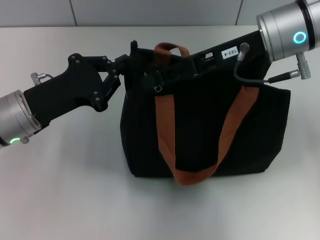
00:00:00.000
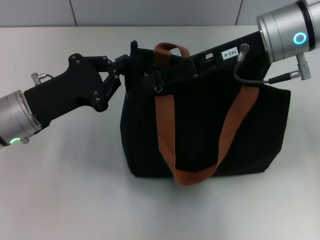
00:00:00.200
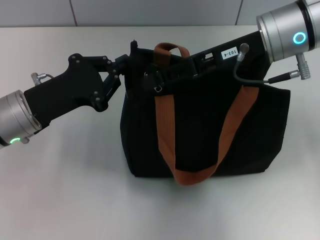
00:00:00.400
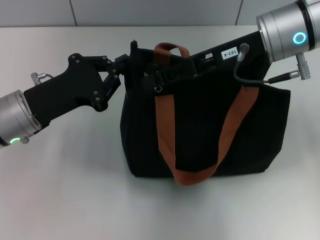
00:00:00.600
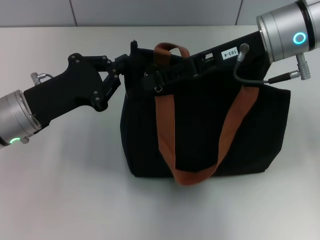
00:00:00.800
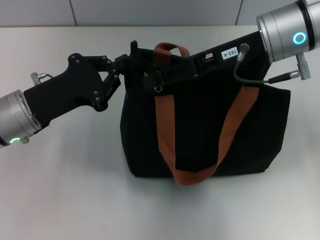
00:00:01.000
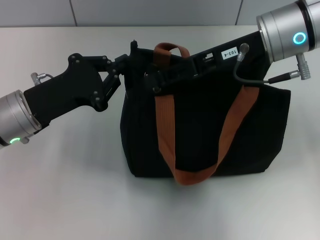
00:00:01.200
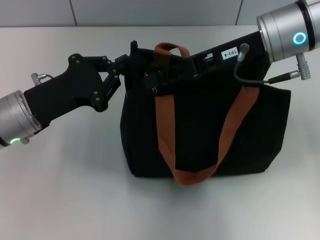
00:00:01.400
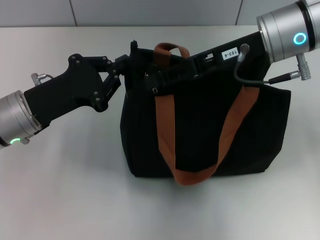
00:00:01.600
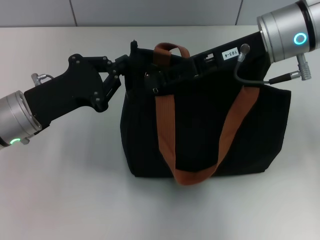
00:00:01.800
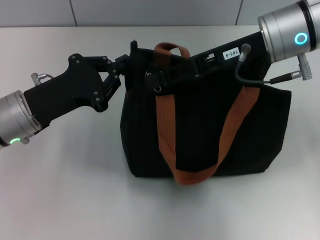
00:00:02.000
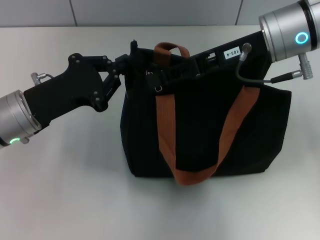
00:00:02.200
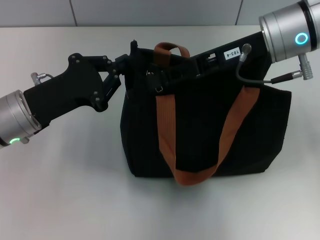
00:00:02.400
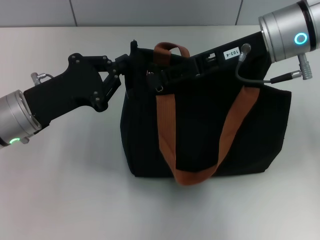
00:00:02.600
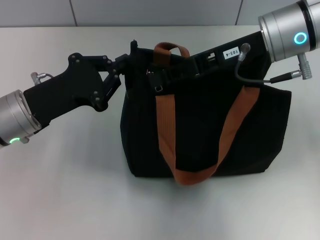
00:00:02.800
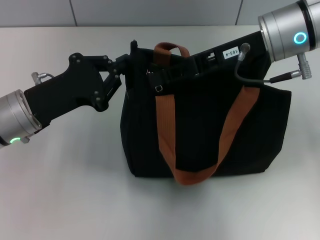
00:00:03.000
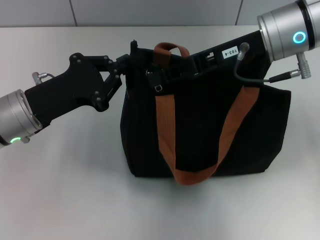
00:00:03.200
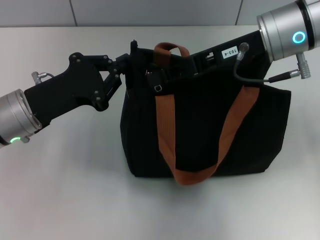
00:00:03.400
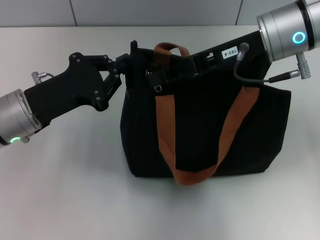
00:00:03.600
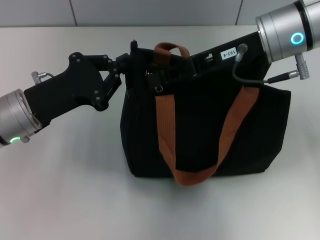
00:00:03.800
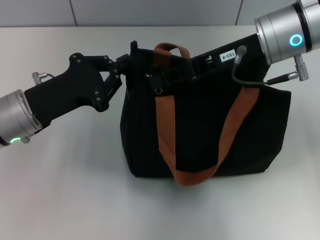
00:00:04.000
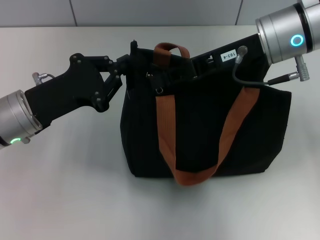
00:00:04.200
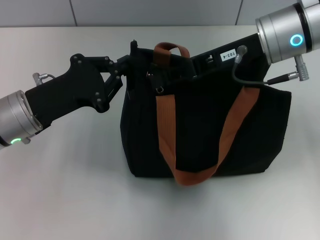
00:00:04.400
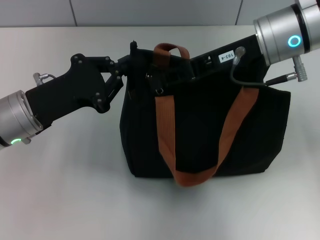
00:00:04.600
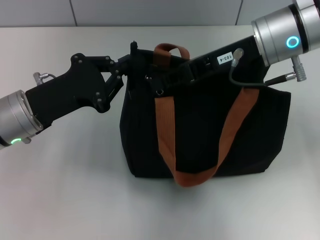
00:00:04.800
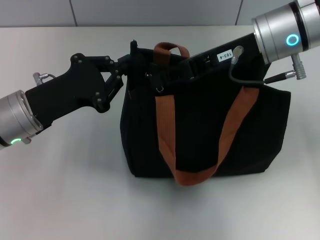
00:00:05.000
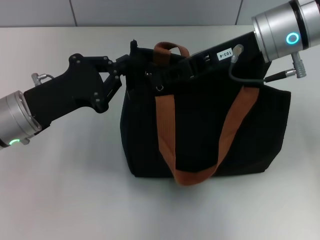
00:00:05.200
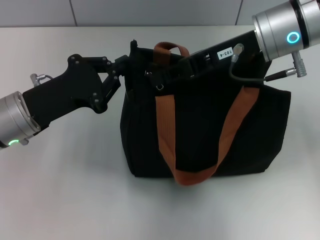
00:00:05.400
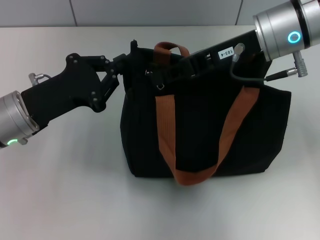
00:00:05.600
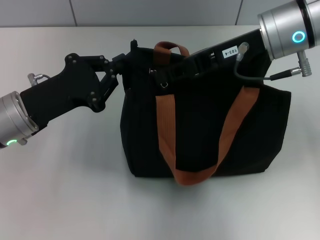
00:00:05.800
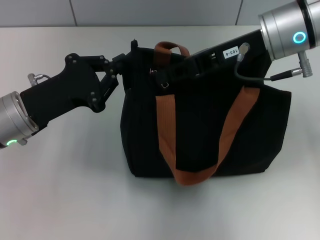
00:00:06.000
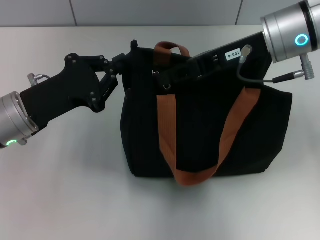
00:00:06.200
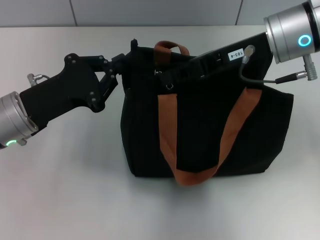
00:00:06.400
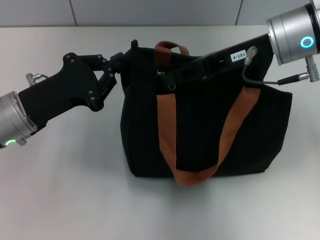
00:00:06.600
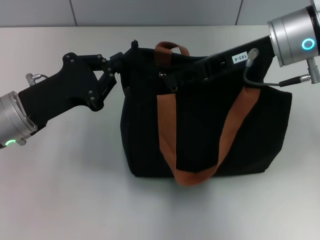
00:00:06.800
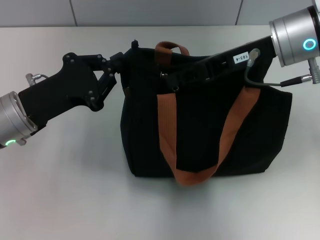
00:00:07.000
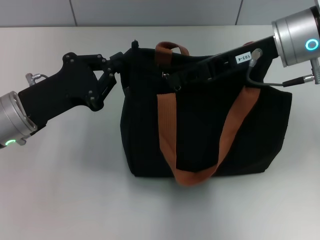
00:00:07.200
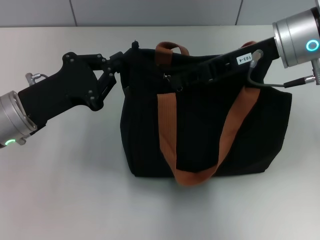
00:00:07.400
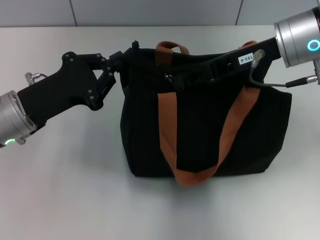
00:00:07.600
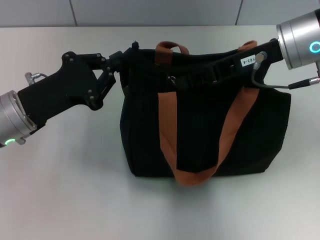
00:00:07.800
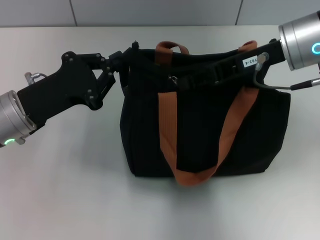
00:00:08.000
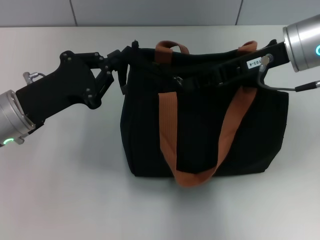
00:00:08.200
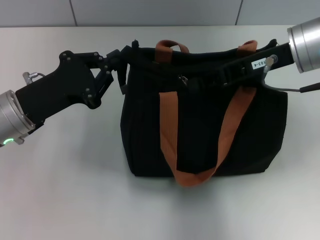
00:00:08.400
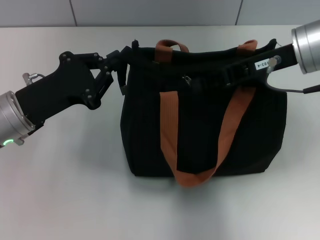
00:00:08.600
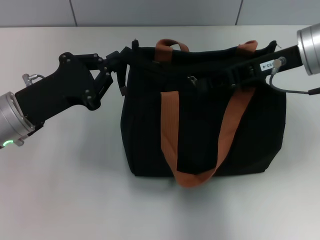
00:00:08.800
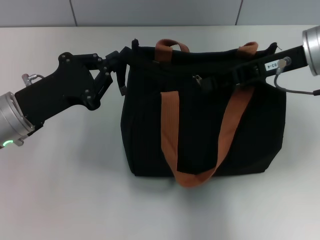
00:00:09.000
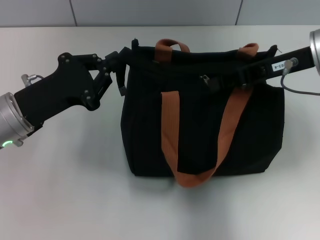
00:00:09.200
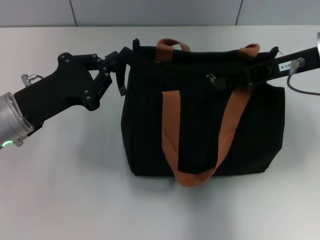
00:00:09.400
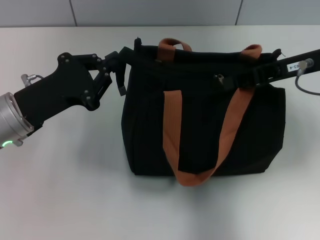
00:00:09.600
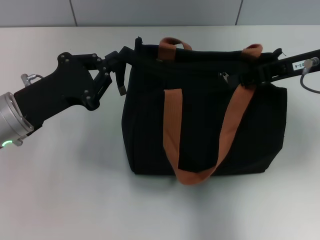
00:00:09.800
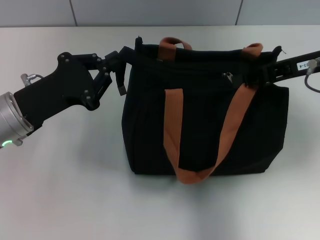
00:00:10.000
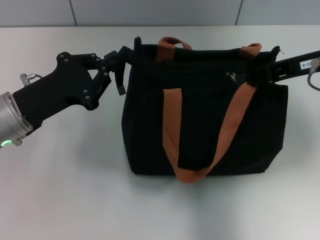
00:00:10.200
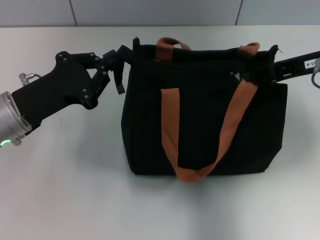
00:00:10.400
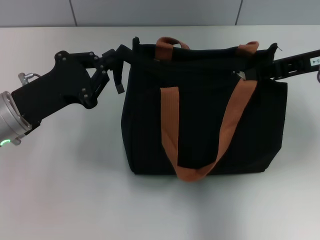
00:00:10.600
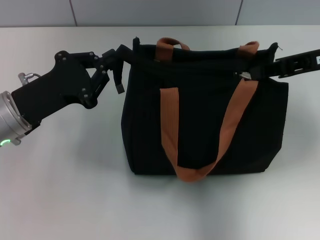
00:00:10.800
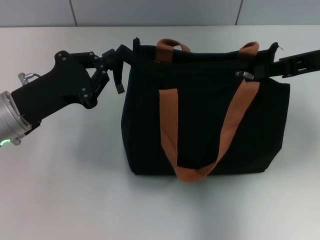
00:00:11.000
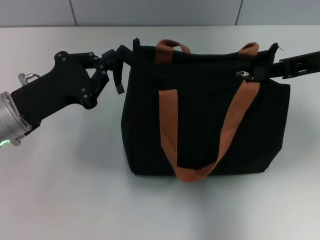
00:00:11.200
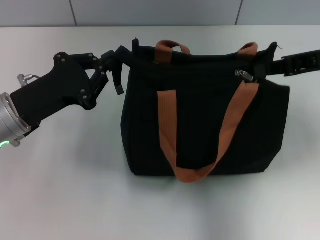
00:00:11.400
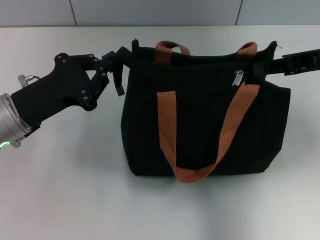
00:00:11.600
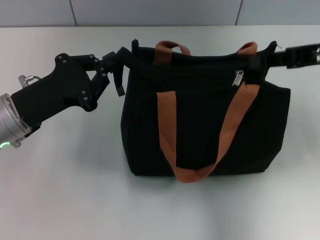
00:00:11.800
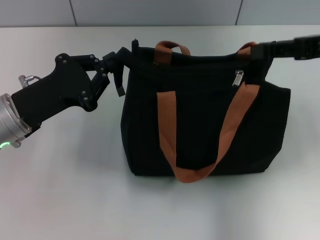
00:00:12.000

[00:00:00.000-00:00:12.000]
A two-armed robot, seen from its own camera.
Step, 00:00:00.000 to 00:00:12.000: Pull up the zipper with your right hand.
00:00:00.000 to 00:00:04.400: Both grippers stay about where they are.
00:00:04.400 to 00:00:06.000: Both grippers stay put.
00:00:06.000 to 00:00:09.000: The grippers stay close to where they were, moving slightly.
00:00:09.000 to 00:00:10.400: The grippers make only small movements.
00:00:10.400 to 00:00:12.000: The grippers make only small movements.

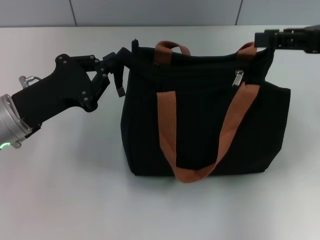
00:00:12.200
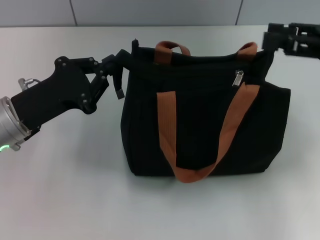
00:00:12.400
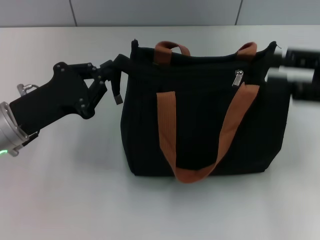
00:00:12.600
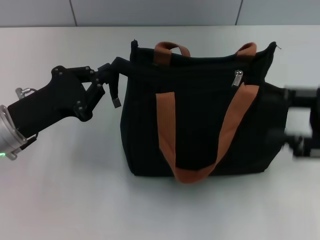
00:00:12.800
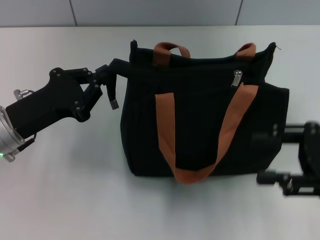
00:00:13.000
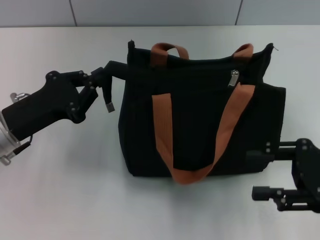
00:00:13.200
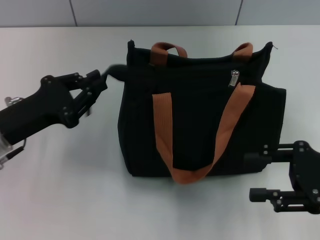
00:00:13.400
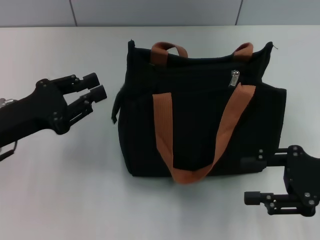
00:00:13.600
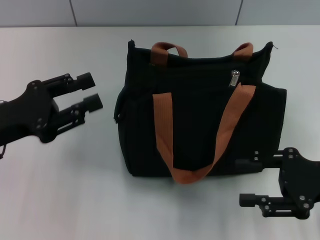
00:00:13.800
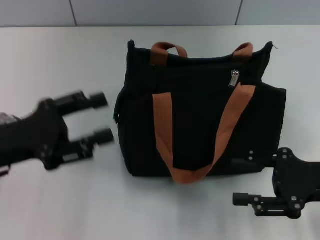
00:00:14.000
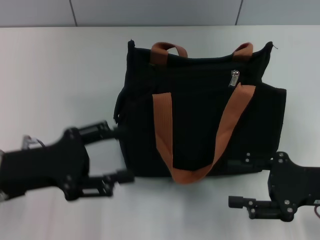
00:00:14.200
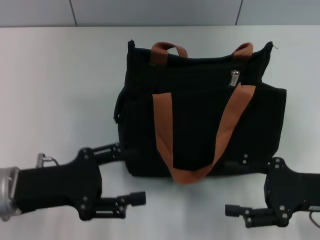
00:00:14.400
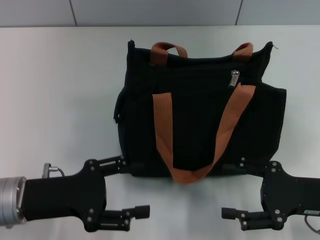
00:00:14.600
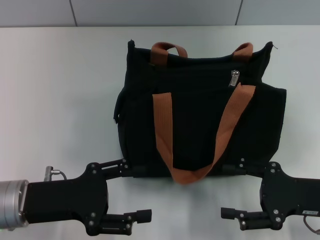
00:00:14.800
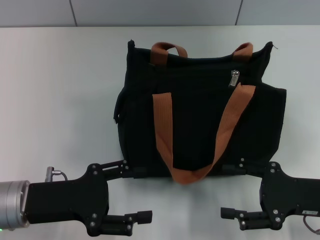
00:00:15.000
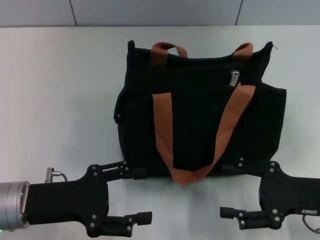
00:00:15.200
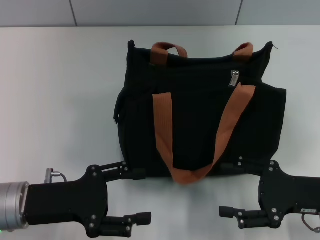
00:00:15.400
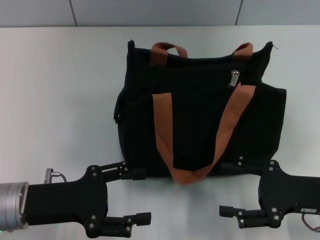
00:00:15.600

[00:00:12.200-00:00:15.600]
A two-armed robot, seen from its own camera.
Step, 00:00:12.200 to 00:00:13.400: Grab the zipper with your left hand.
00:00:12.200 to 00:00:13.800: The left gripper shifts by approximately 5 cm, and opens its fingers, while the right gripper goes about 15 cm downward and backward, and opens up.
00:00:13.800 to 00:00:15.600: The left gripper is displaced downward by approximately 5 cm, and opens its fingers.
